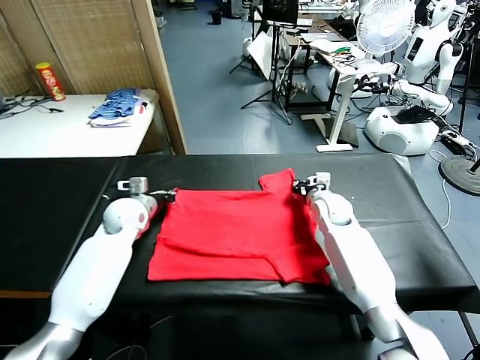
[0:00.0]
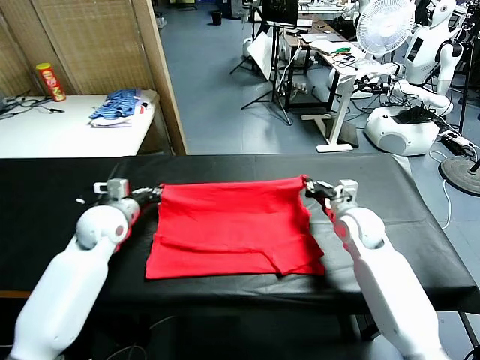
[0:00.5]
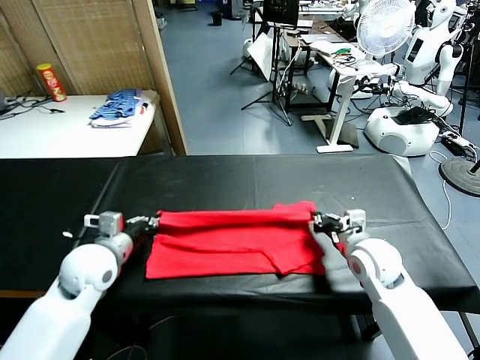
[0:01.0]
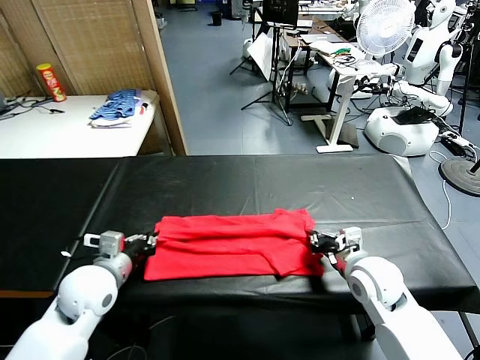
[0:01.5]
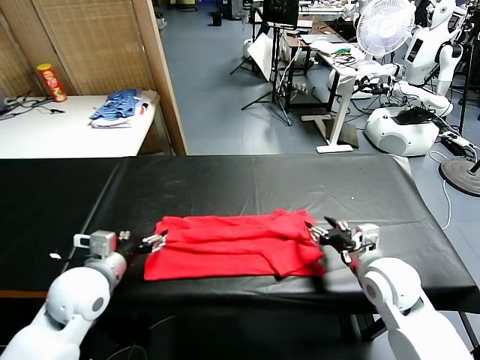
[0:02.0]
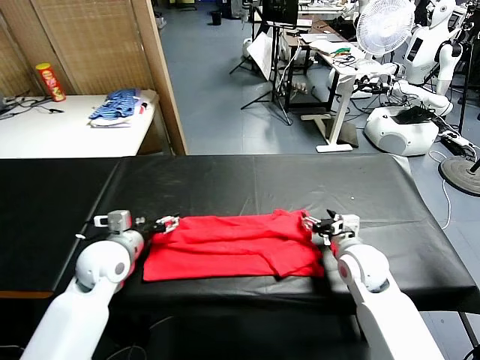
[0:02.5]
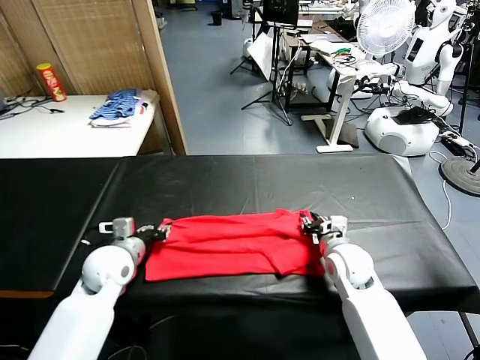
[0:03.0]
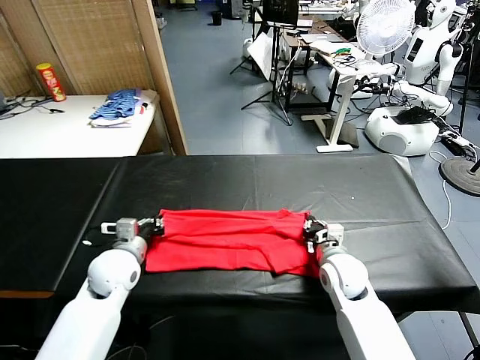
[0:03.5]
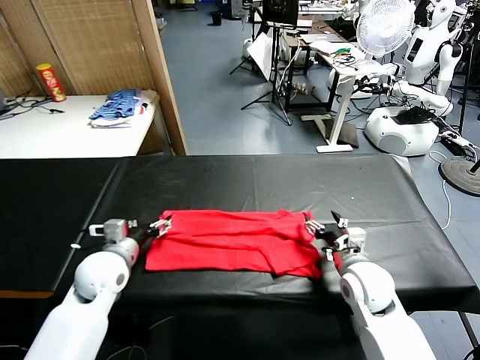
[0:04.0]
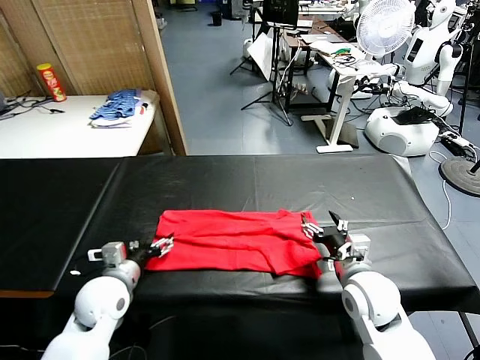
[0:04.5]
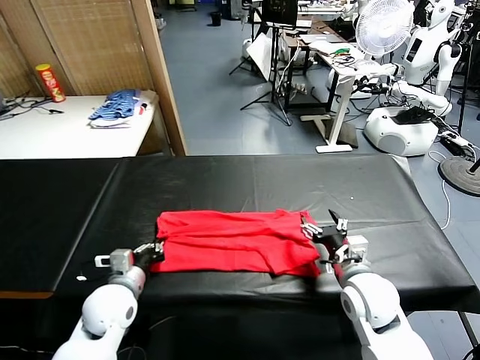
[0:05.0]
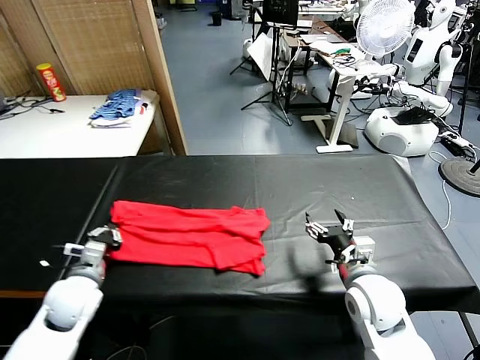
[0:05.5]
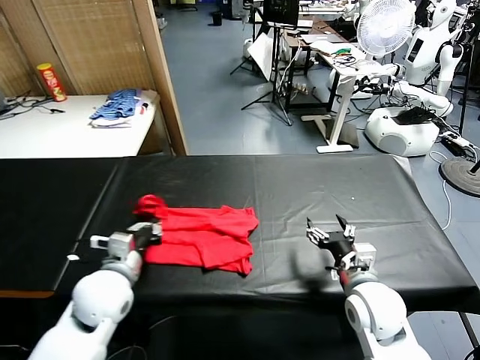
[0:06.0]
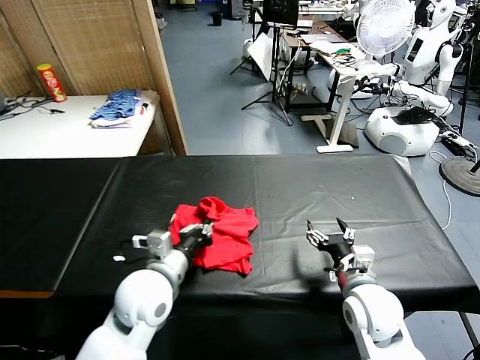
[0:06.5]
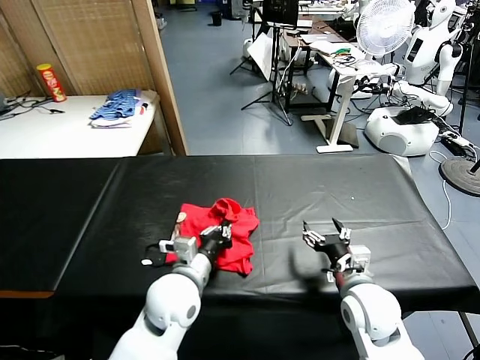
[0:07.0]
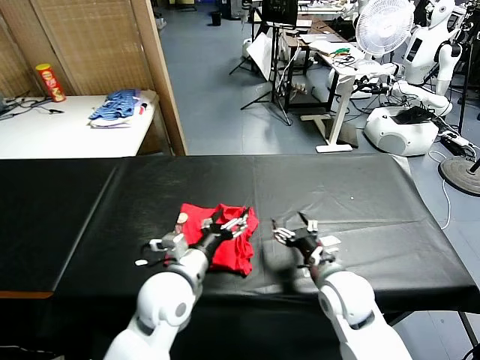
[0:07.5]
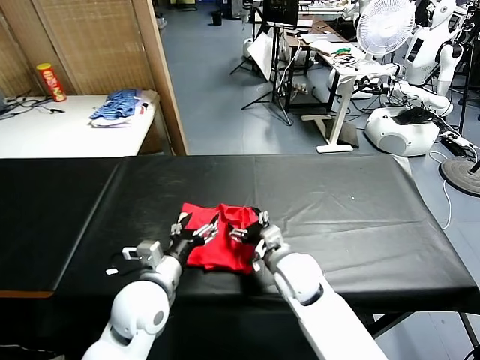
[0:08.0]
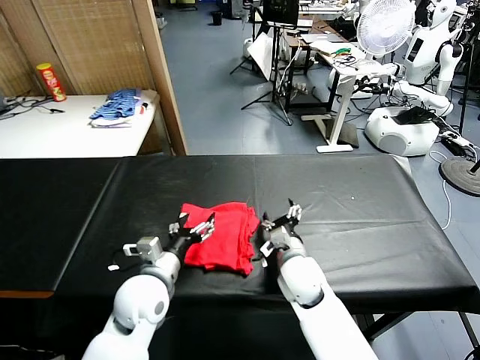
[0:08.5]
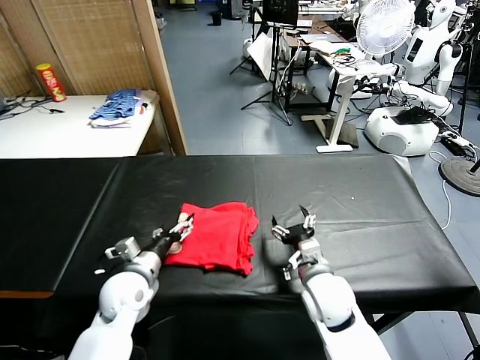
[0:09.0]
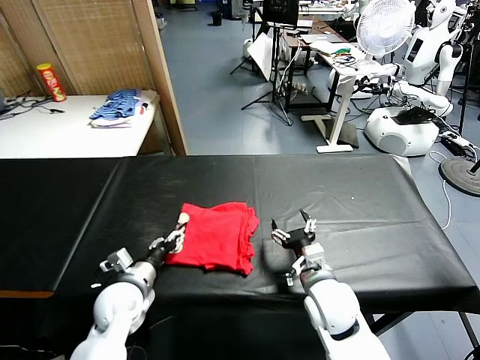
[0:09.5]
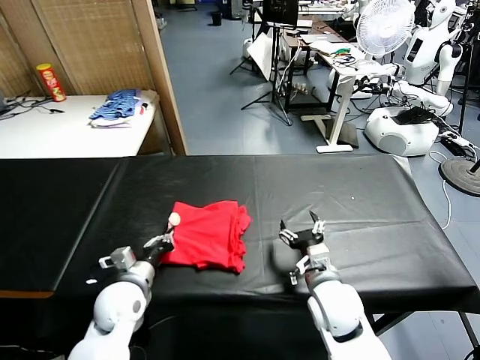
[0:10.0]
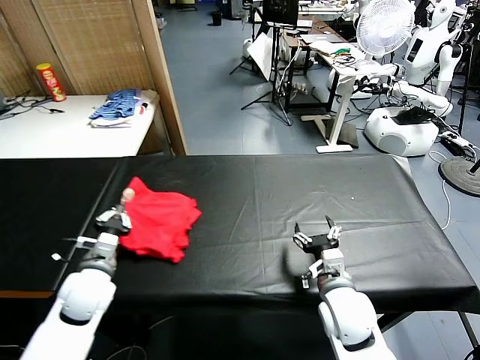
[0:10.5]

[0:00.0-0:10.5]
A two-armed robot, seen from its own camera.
Task of the whole recording: fold and organize the clothes.
Step, 0:00.5 to 0:01.5: use both grippers to drag the upper edge of the fabric backward and fold it over the lower edge.
Step, 0:02.0 to 0:05.0: use the left gripper to clamp the left edge of the fabric.
Step, 0:05.5 to 0:07.0: use the left gripper to drag the left edge of the fabric to the left and folds it over the right edge.
0:00.0 to 0:02.0: Both grippers move backward, some 20 cm. The right gripper opens. The left gripper opens its fingers.
0:02.0 to 0:04.0: The left gripper moves roughly 5 cm, and closes, then opens again, while the right gripper closes, then reopens.
0:04.0 to 0:06.5: The left gripper moves to the right, roughly 15 cm, and closes up.
0:06.5 to 0:08.5: The right gripper travels to the left and forward by some 15 cm. Meanwhile the left gripper opens its fingers.
0:08.5 to 0:10.5: The left gripper shifts approximately 10 cm to the left, and closes up, while the right gripper is displaced backward and to the right by some 10 cm.

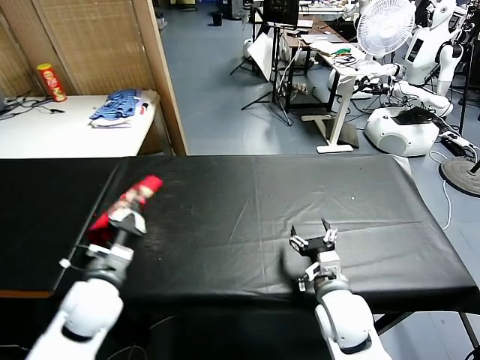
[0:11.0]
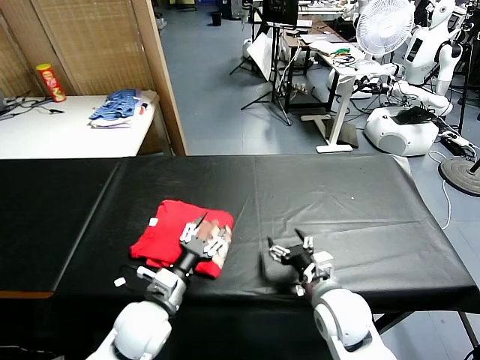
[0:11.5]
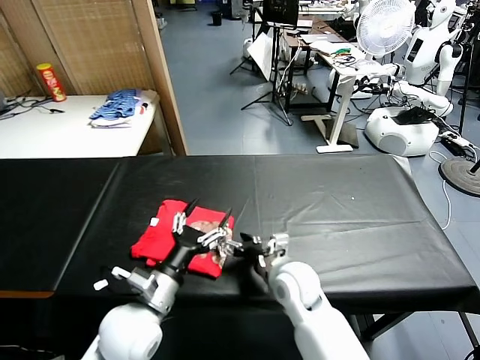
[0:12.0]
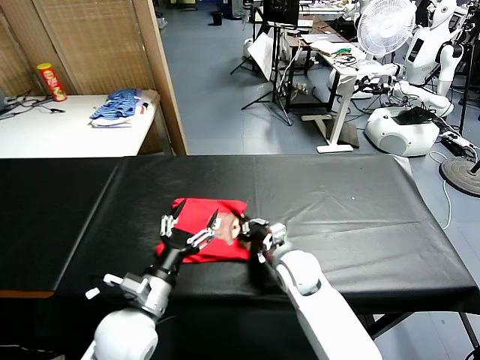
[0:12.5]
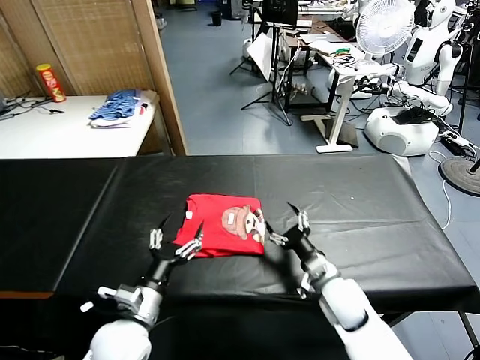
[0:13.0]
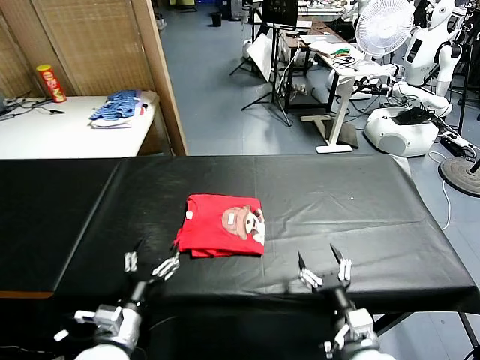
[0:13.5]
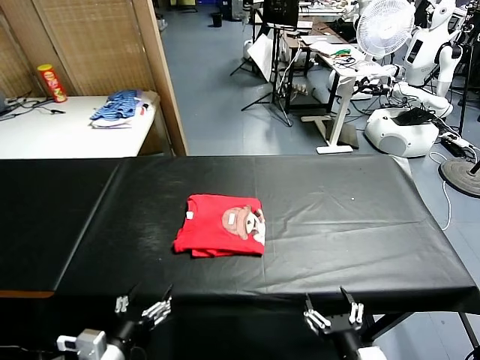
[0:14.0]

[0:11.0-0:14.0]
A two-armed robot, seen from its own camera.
Task of the whole recording: fold and organize the clothes.
Step, 0:12.0 to 0:12.5: Drag the clothes to the center of the table.
0:11.0 to 0:12.5: The left gripper is displaced to the right and backward by some 10 cm, and opens its fingers; the right gripper is displaced forward and to the left by about 15 cm, and closes up.
0:12.5 to 0:14.0: The left gripper goes approximately 10 cm backward and to the left. Meanwhile the right gripper is displaced backward by about 30 cm, and opens.

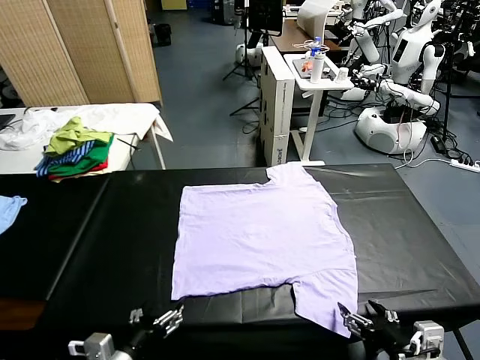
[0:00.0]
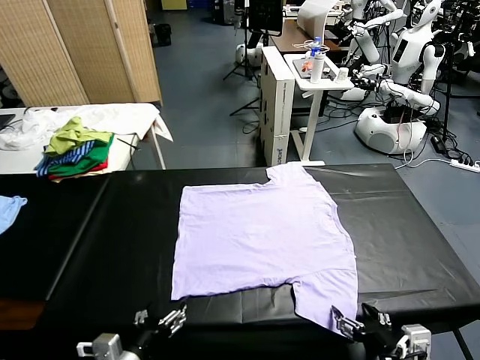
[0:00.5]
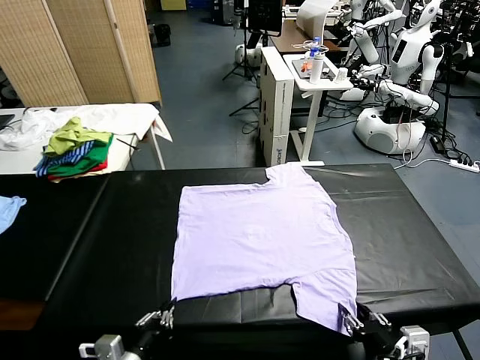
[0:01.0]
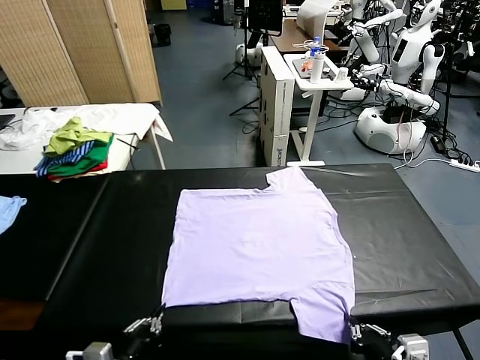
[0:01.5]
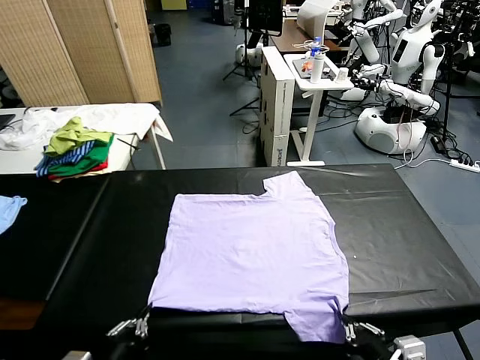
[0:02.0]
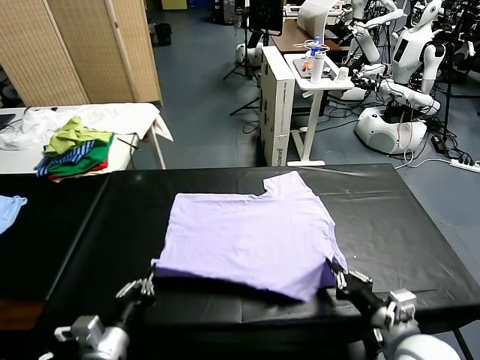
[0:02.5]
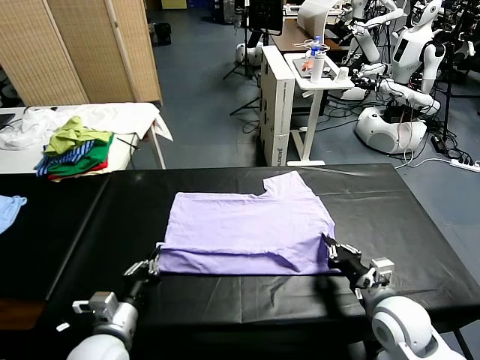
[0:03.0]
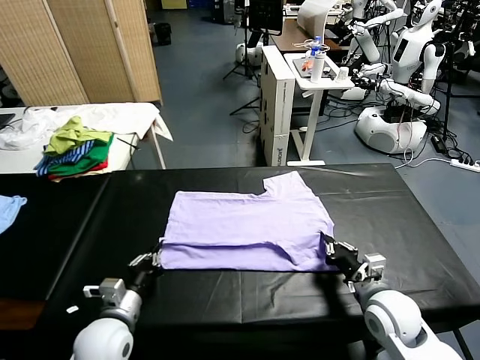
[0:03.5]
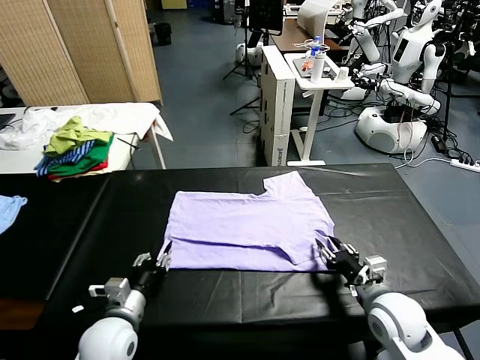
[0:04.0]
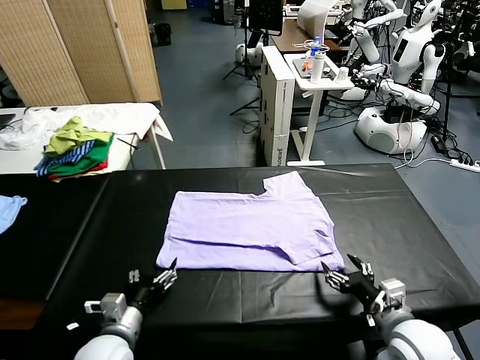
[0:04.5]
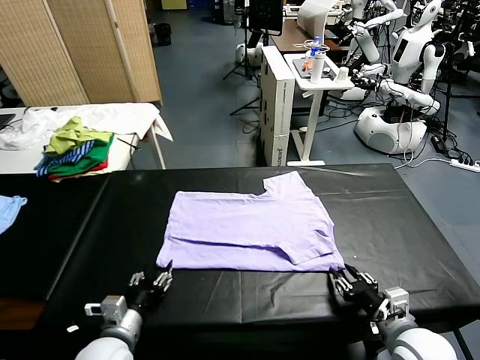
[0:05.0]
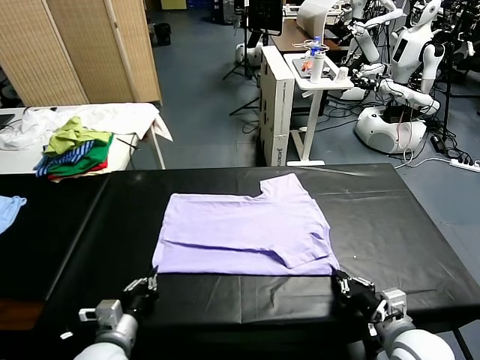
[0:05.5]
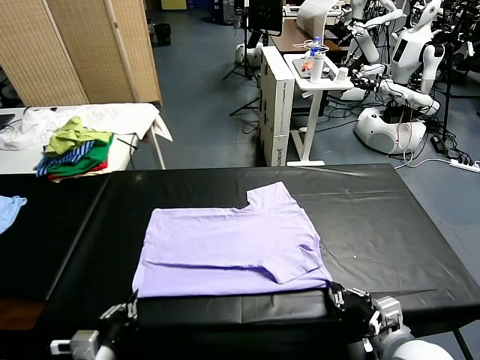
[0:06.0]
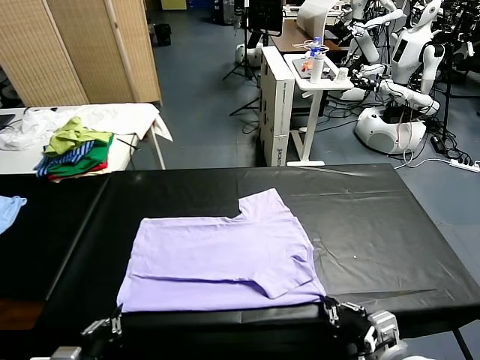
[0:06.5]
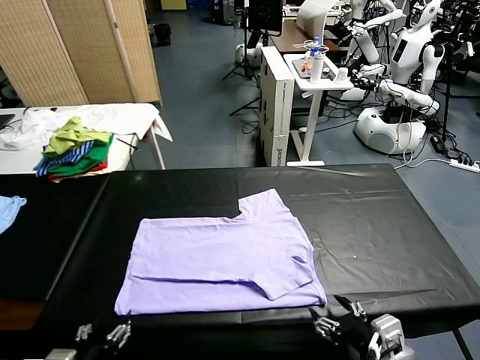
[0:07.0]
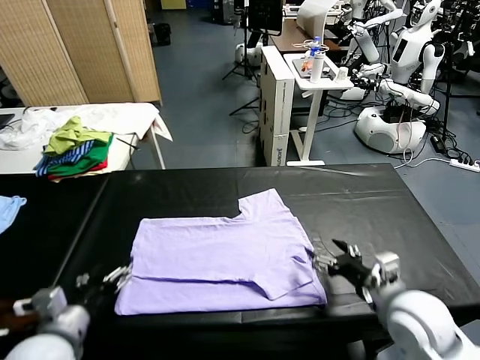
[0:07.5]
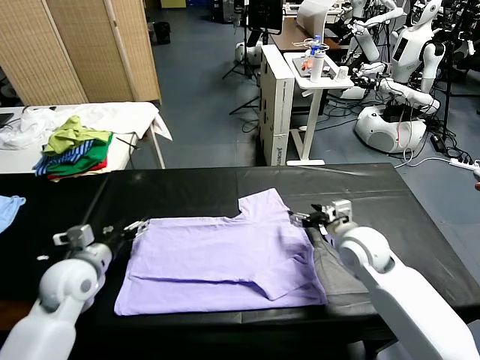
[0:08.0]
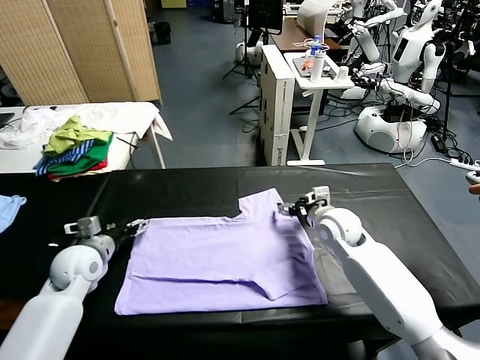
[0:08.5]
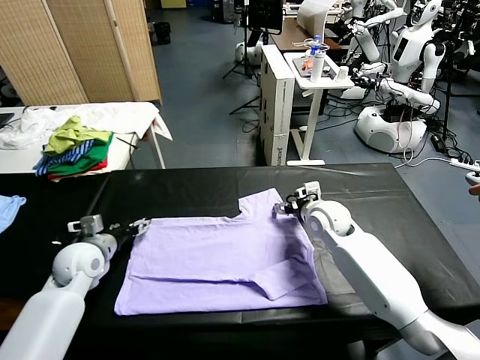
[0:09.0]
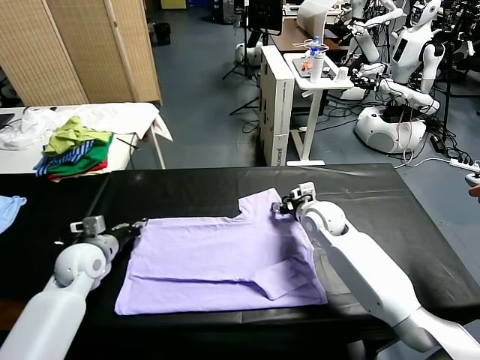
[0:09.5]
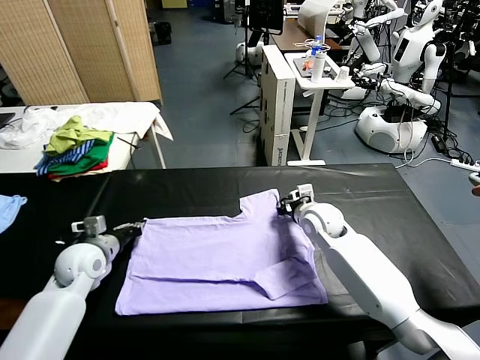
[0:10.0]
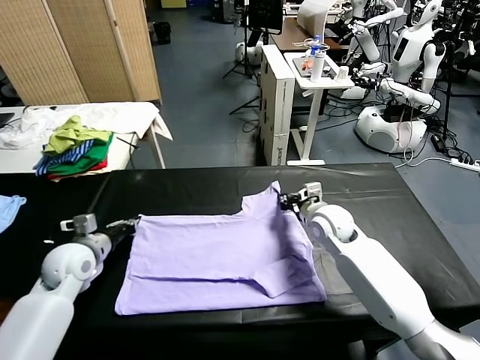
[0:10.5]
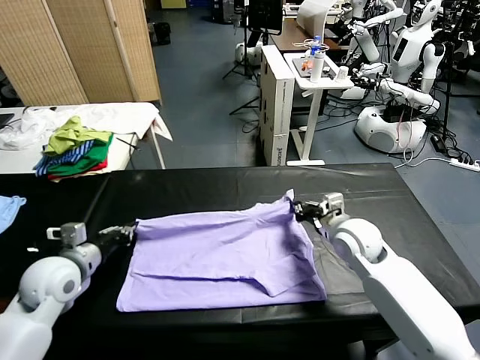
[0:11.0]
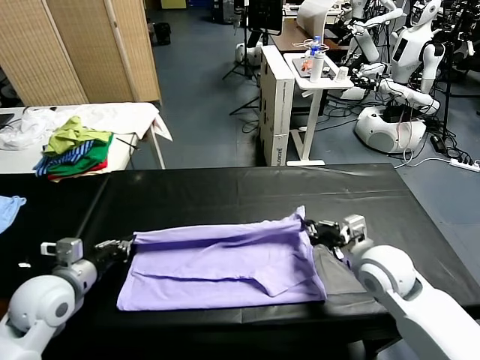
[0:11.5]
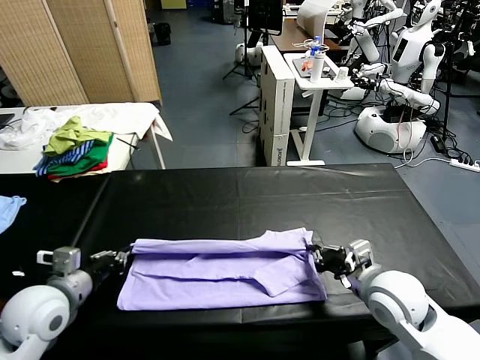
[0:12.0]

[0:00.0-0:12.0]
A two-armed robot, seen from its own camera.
Task of the whole recording: fold and organize the clothes.
Step, 0:00.0 to 0:01.0: use both grippers simultaneously to clamp the lower edge of the clothing fabric.
Step, 0:01.5 to 0:04.0: use both grippers to drag the lower edge of the fabric forward and fold it over the upper edge.
Step, 0:04.5 to 0:06.5: Drag the clothes downward with both gripper.
Step, 0:07.0 to 0:10.0: use both grippers simultaneously to clamp the upper edge of the clothing fabric.
0:02.0 to 0:04.0: The right gripper travels forward by approximately 10 cm, and opens up, while the left gripper goes some 15 cm forward and downward, and opens its fingers.
0:04.0 to 0:06.0: Both grippers travel together backward, about 10 cm. The right gripper closes up; the left gripper closes up.
0:06.0 to 0:08.0: Both grippers travel together forward, about 25 cm. The right gripper opens its fingers. Meanwhile the left gripper opens.
0:08.0 to 0:10.0: The right gripper travels forward by approximately 5 cm, and closes. The left gripper closes.
0:10.0 to 0:12.0: The left gripper travels backward and upward by approximately 15 cm, while the right gripper goes some 20 cm backward.
